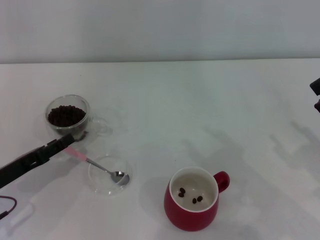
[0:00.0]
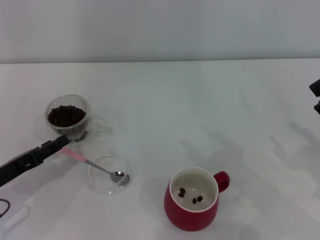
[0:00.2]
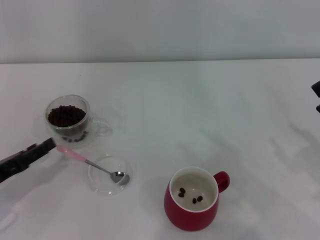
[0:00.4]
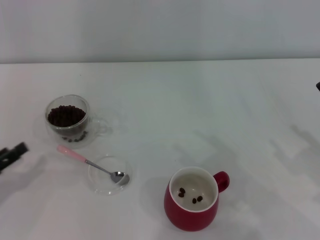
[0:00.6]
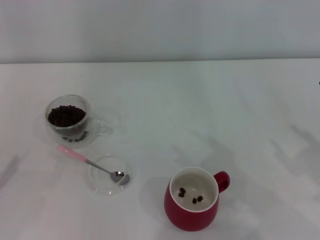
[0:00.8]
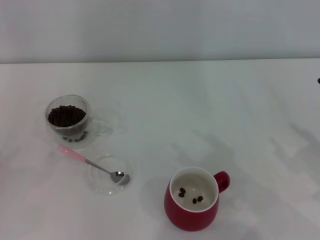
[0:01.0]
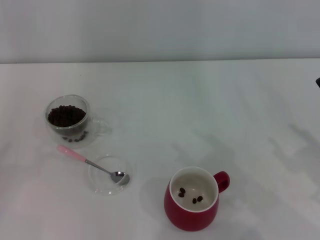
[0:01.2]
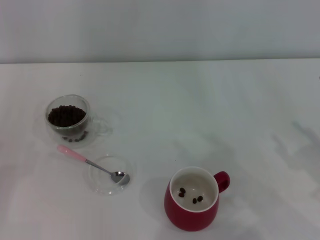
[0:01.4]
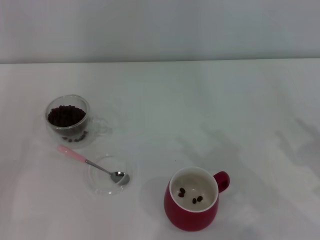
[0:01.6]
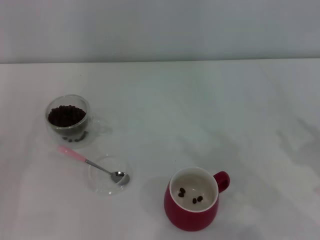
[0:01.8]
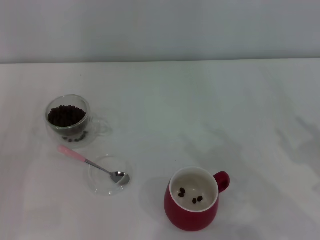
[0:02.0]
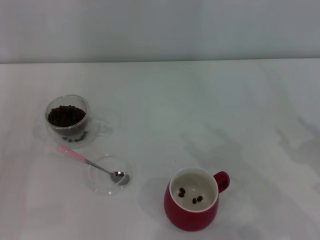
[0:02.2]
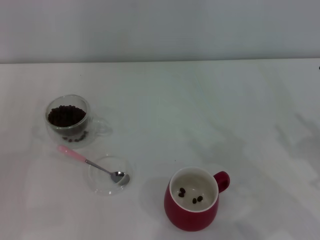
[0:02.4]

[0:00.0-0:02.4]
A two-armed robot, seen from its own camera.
Task of the whole recording: Use a pink spoon to take out the coffee beans from the glass and pour them into the red cup.
0:00.0 to 0:01.2: The left gripper travels to the left and backward by roughly 15 cm.

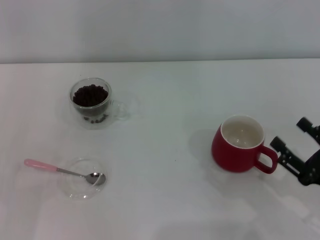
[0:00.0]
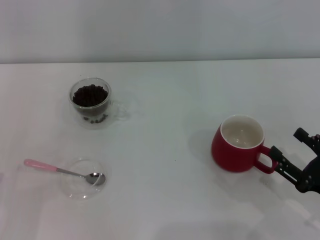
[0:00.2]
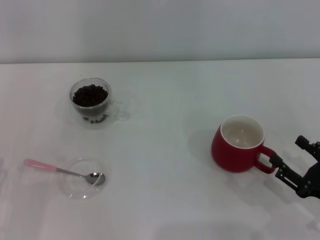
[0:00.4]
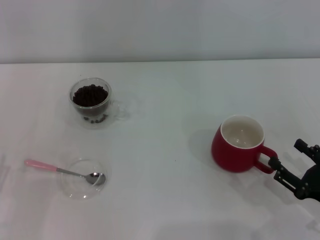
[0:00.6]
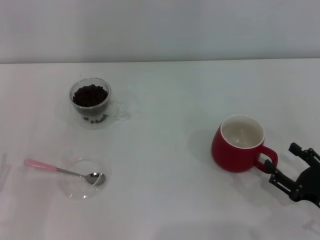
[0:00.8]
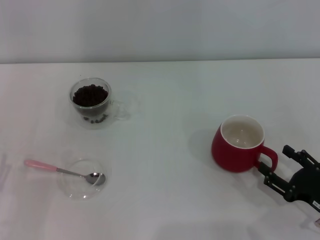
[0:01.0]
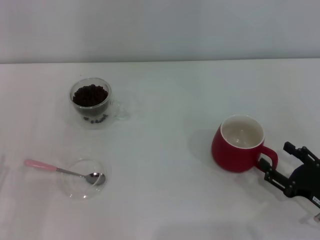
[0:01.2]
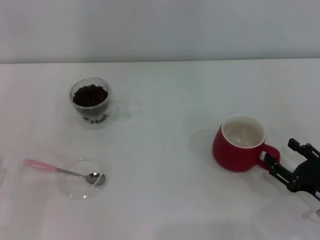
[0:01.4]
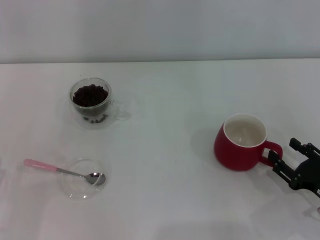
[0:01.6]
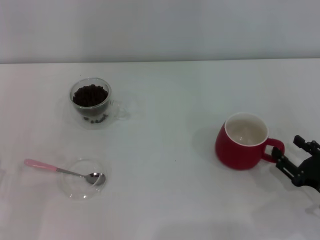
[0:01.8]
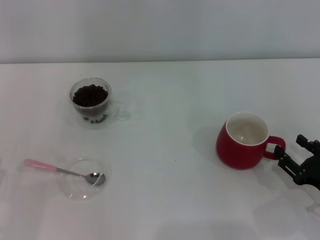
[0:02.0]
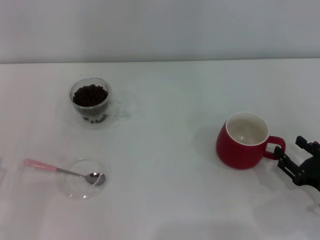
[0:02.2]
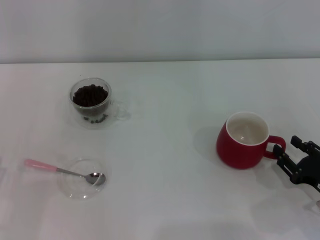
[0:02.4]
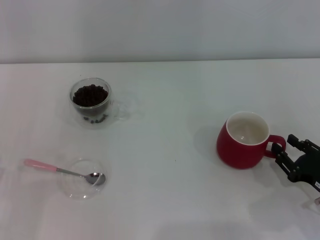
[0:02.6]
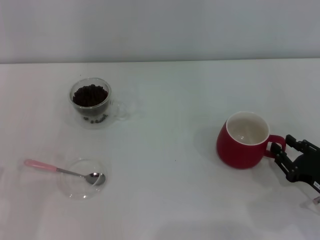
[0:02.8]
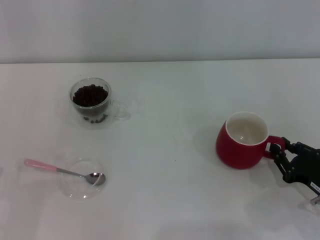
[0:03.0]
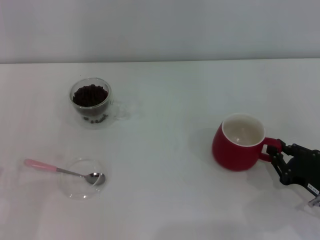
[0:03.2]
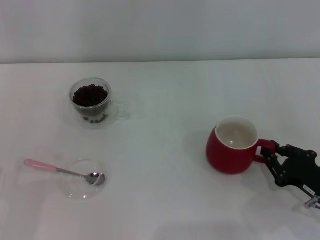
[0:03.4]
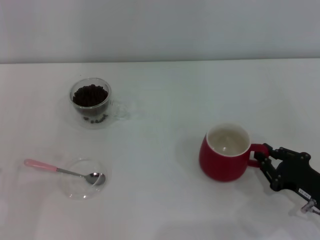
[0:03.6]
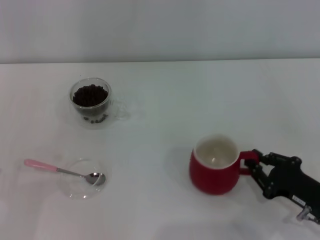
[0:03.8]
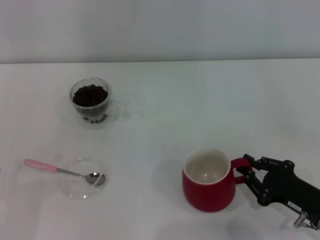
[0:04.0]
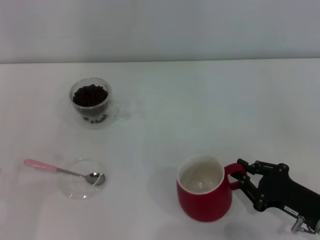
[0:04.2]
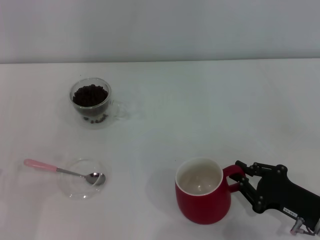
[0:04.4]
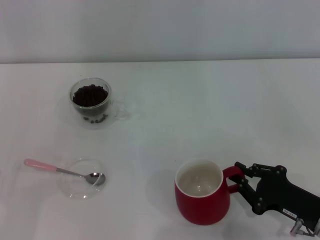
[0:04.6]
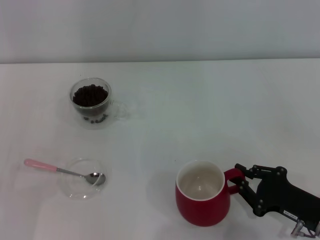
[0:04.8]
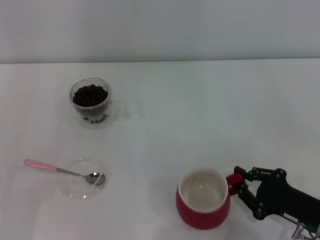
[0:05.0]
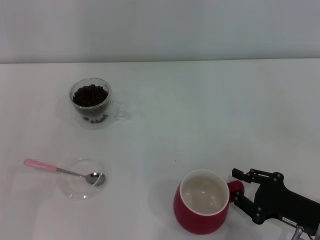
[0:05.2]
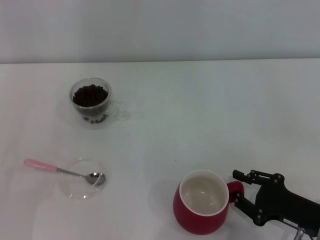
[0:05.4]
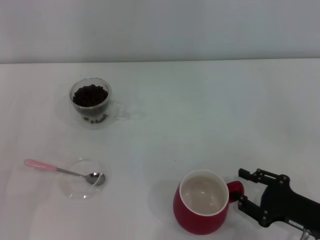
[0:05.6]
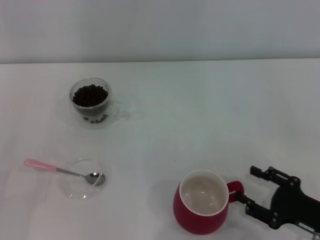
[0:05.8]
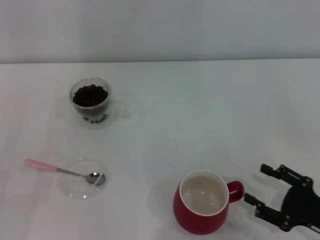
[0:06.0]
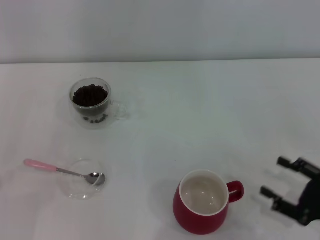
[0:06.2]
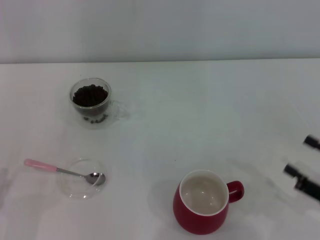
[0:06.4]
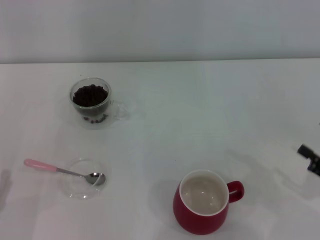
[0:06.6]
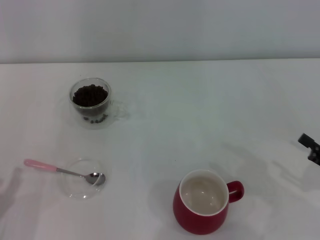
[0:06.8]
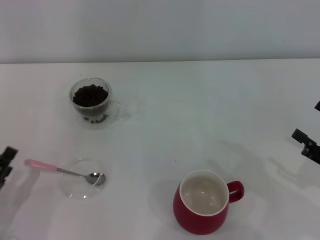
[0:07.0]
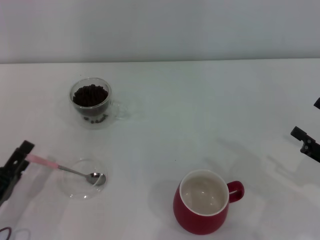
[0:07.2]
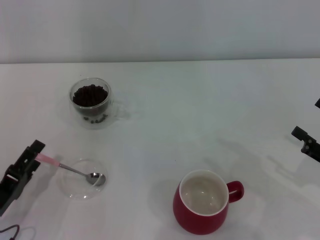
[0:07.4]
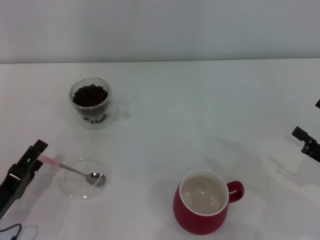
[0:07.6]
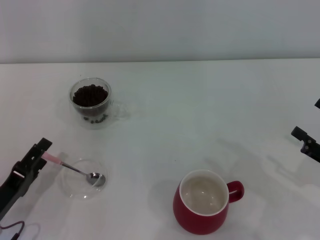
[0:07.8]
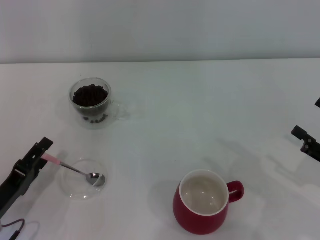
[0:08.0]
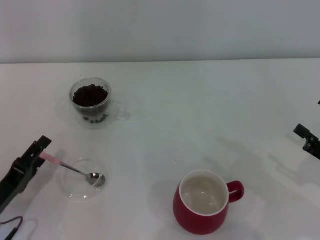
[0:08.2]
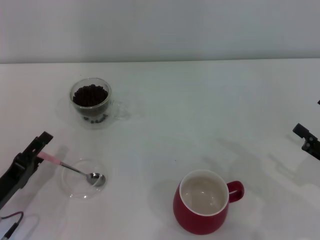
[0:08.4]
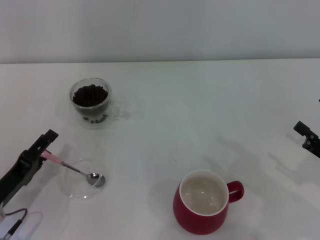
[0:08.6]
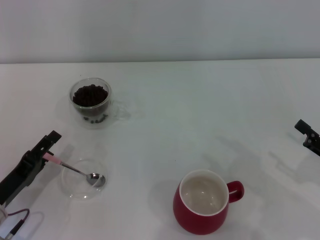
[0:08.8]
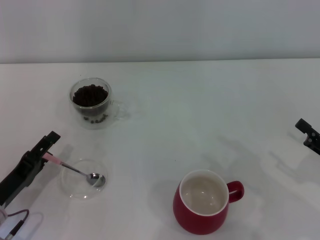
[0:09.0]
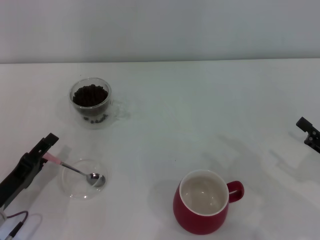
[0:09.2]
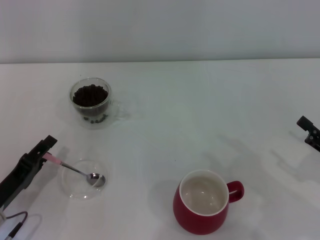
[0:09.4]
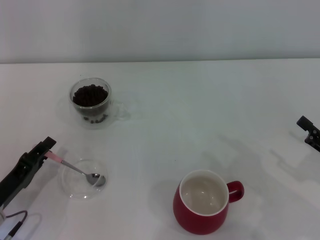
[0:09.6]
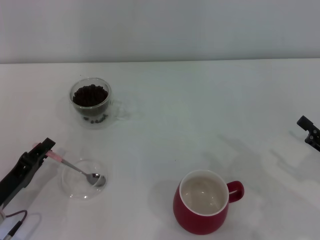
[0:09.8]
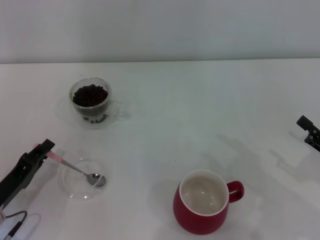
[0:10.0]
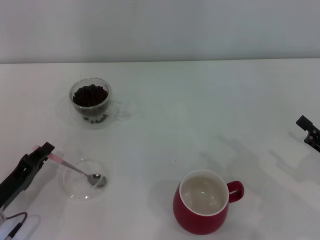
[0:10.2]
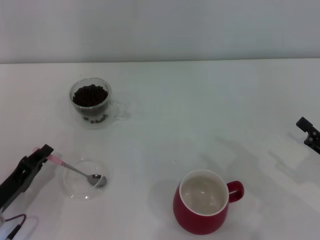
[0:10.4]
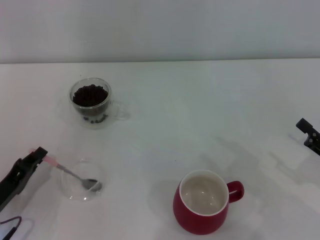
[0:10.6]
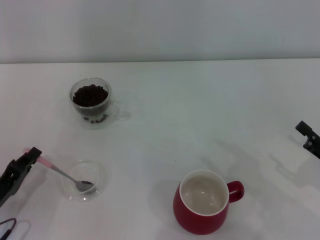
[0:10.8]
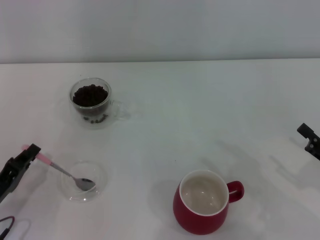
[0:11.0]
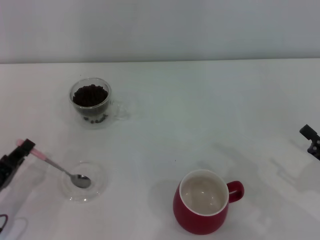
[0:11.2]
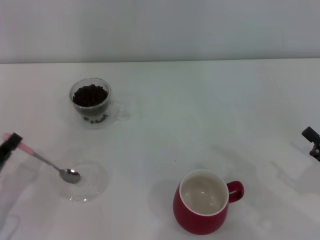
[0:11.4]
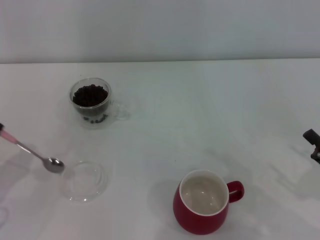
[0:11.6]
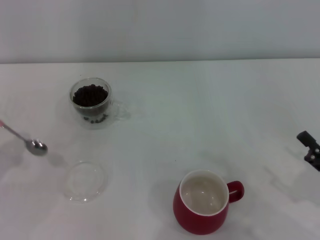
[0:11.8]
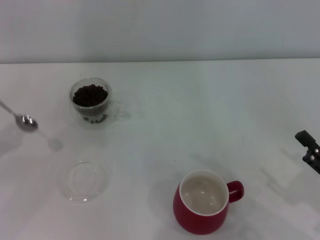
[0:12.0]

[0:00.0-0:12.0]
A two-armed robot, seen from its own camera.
Task of the whole recording: Use a pink spoon to take out the coffee beans from the glass and pour them into the red cup.
Step, 0:00.0 to 0:06.0: Move the cup to the center of view with the left gripper.
Step, 0:06.2 to 0:11.6: Pick up the spoon with the right gripper.
0:00.0 to 0:01.6: The grippers stay close to where they were, moving slightly.
0:01.6 to 0:03.0: The right gripper closes up.
0:04.4 to 0:06.0: The right gripper opens its fingers.
0:06.0 to 0:07.6: The left gripper goes roughly 10 cm forward and to the right; the right gripper goes approximately 10 cm upward and to the right.
0:07.6 to 0:09.0: The grippers make only small movements.
0:09.0 to 0:10.4: The left gripper closes.
0:10.4 to 0:12.0: The left gripper heads upward and to the left, covering about 15 cm.

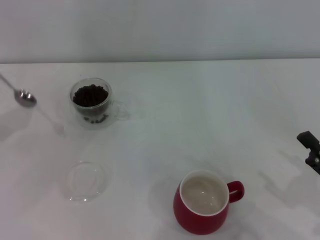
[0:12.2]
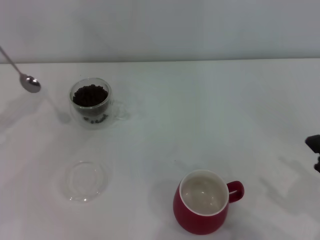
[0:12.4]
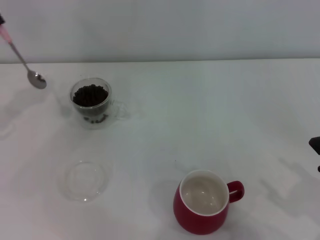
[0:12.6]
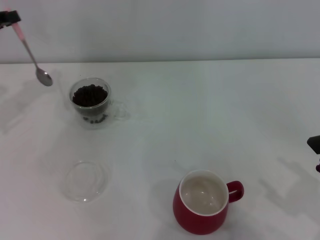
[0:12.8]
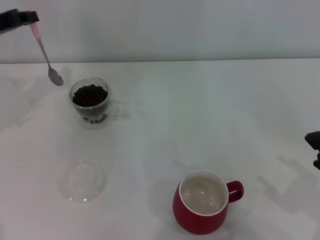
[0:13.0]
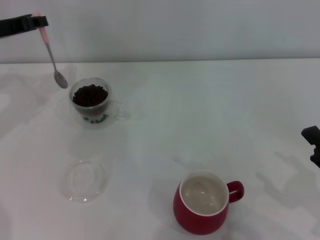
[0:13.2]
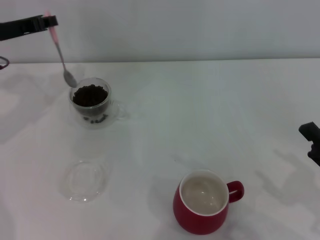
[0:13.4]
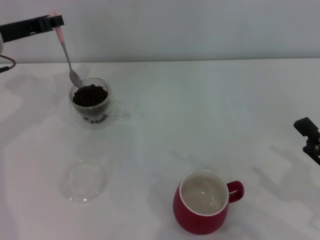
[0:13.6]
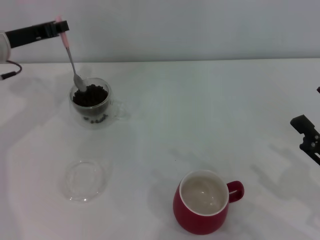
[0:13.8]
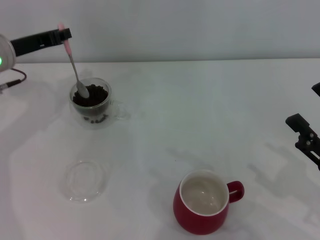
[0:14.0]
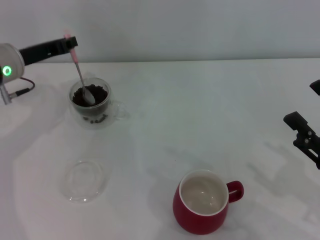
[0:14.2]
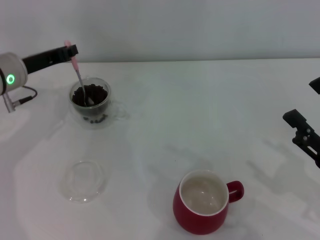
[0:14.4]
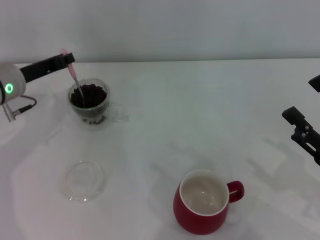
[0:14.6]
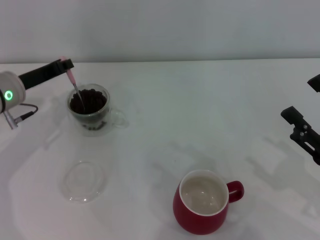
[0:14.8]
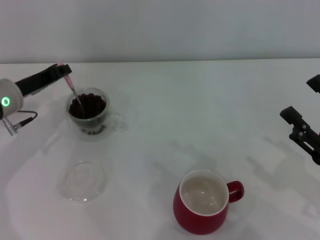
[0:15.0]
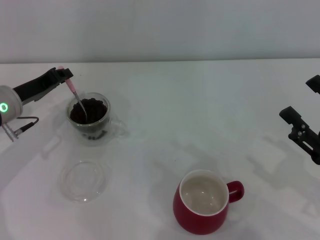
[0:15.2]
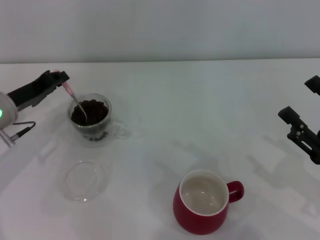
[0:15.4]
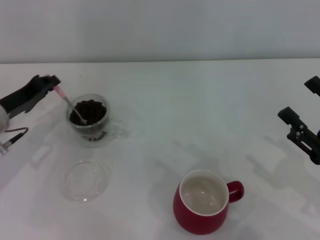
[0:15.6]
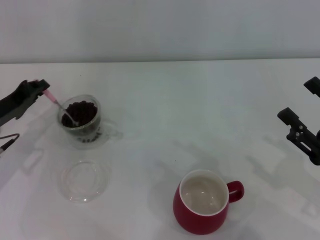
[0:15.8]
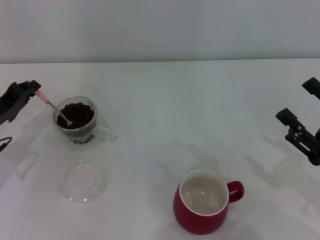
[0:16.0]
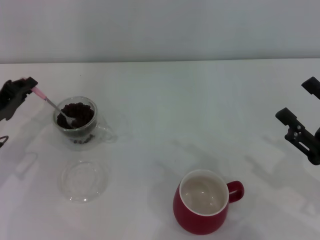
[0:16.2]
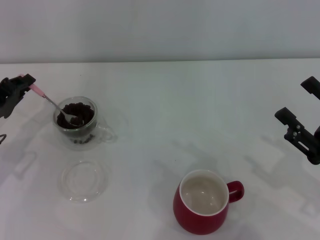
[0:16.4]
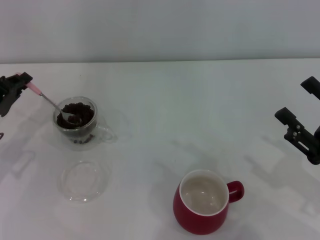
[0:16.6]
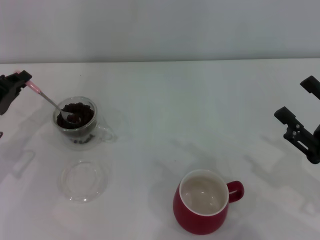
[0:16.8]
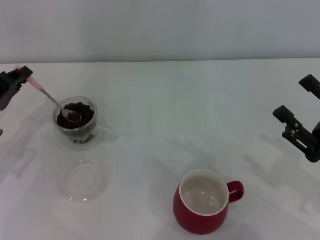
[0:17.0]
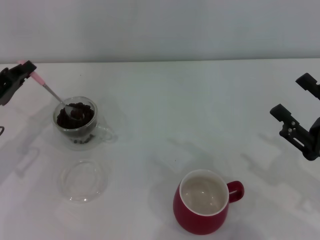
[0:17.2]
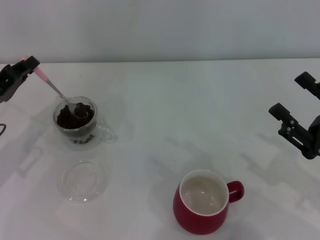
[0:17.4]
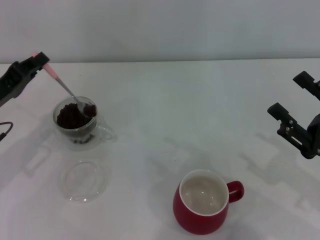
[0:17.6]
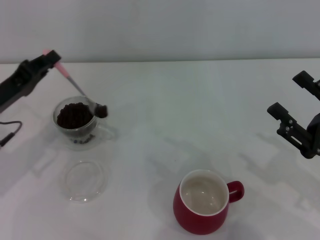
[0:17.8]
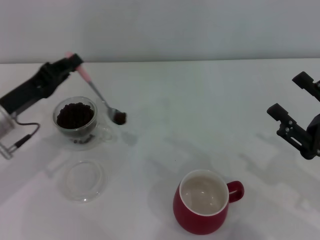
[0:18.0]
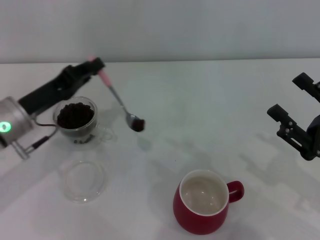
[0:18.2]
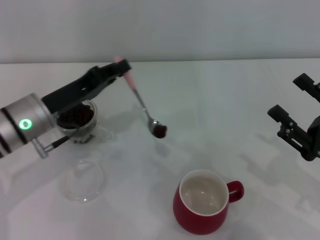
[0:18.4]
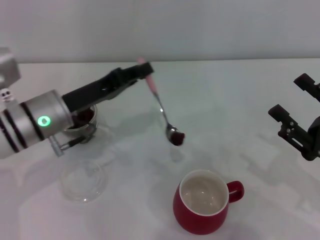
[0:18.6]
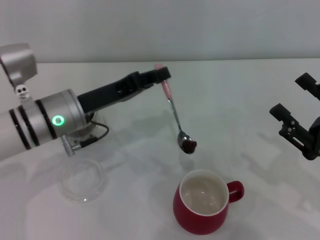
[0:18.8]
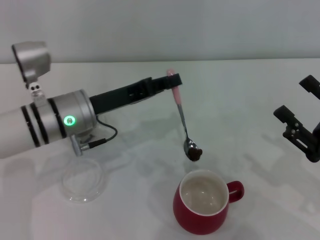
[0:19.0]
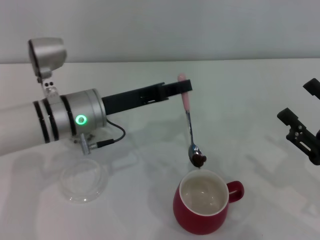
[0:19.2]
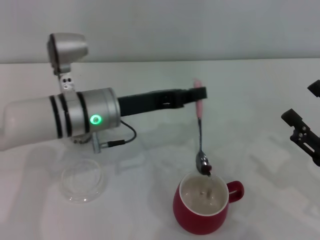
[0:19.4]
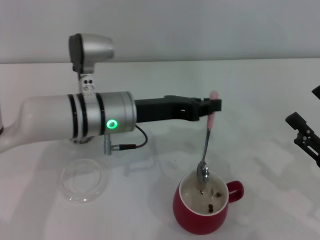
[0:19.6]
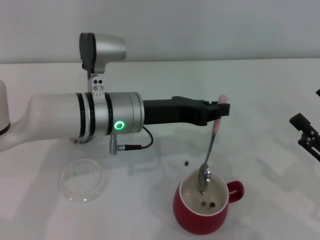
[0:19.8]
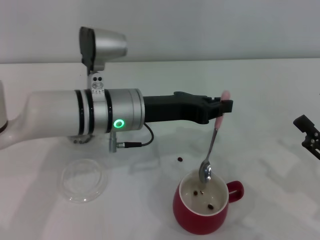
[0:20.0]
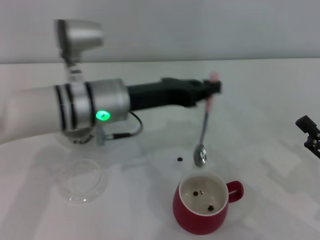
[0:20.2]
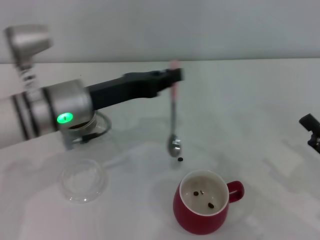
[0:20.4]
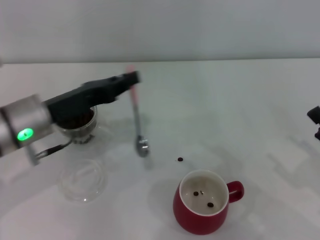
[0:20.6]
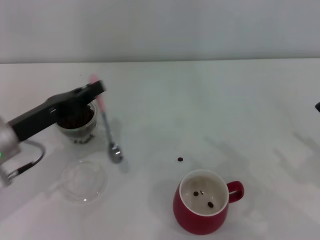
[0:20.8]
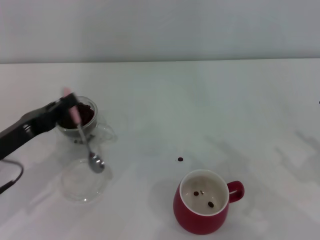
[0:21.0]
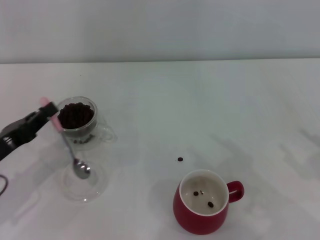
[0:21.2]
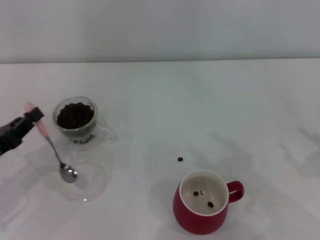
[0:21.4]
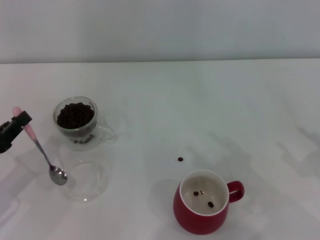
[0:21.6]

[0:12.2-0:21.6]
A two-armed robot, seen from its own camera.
Task of the whole recording: Use a pink spoon to take out the coffee beans from the glass and pour them into the red cup.
Step, 0:12.2 to 0:20.0: Scoop a spoonful of beans into the cup with the right gripper.
0:12.2 to 0:13.8: The left gripper is displaced forward and to the right by approximately 20 cm.
0:13.8 to 0:15.4: The left gripper travels downward and backward by roughly 10 cm.
0:15.4 to 0:17.0: The left gripper ends up about 5 cm from where it was.
0:17.0 to 0:18.4: The left gripper moves to the right, about 10 cm.
0:18.4 to 0:20.0: The left gripper travels to the right by about 15 cm.
0:20.0 to 0:21.6: The left gripper travels to the left and backward by about 25 cm.
